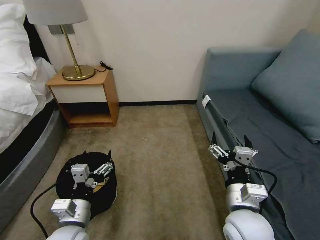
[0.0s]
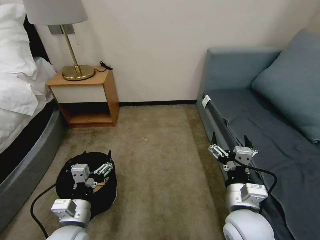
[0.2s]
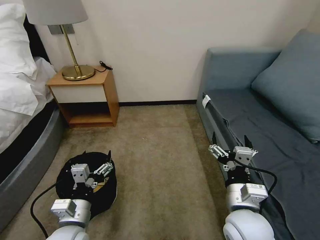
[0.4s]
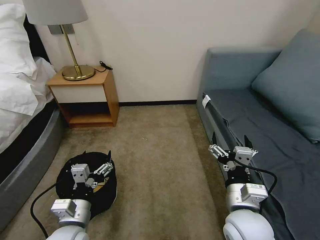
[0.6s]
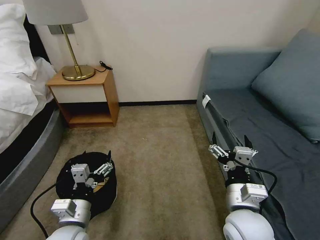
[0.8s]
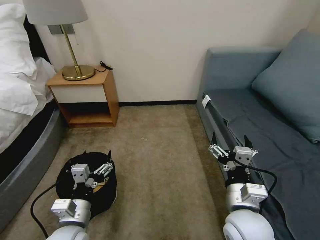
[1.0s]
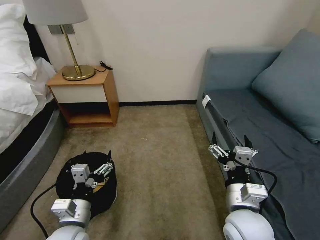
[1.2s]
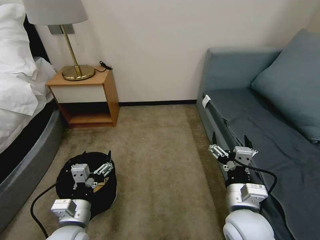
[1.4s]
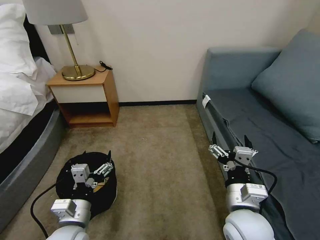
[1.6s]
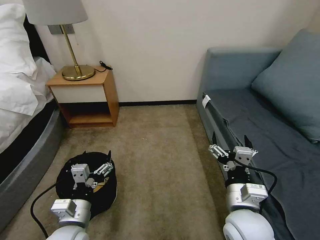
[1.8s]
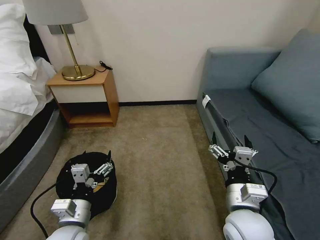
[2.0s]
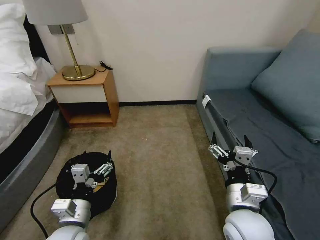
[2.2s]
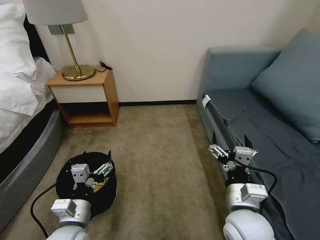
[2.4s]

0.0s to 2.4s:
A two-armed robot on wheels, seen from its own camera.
Task of the whole recording: Pick up the trash bin, then pick up the garbage on the floor and place it into the trash bin.
0.0s to 2.4s: Both grippers stay put.

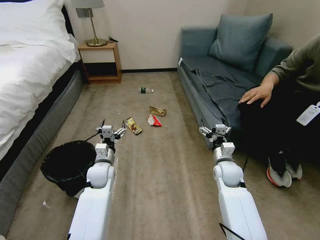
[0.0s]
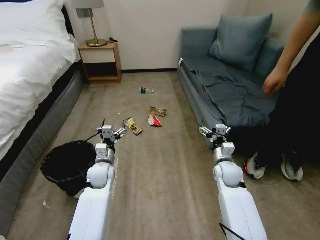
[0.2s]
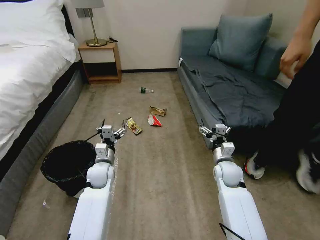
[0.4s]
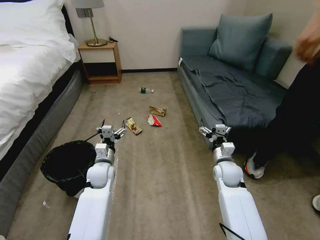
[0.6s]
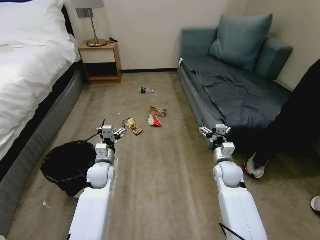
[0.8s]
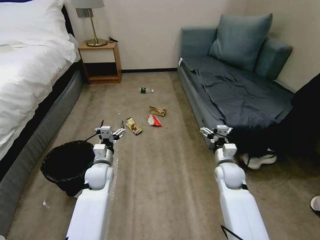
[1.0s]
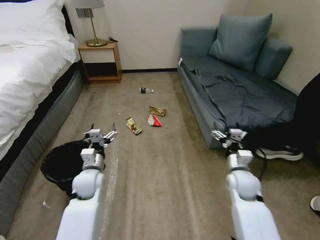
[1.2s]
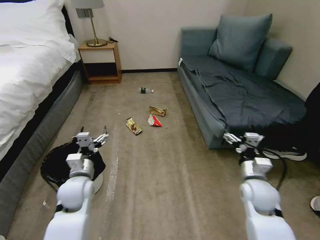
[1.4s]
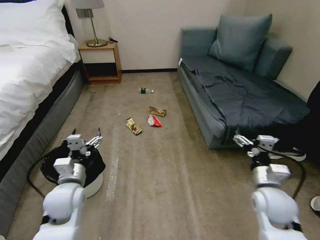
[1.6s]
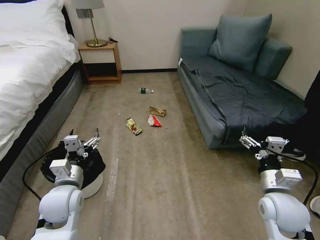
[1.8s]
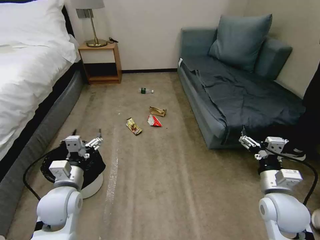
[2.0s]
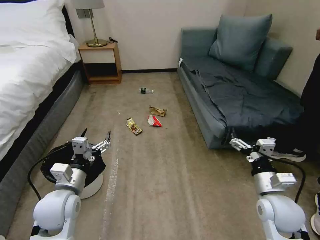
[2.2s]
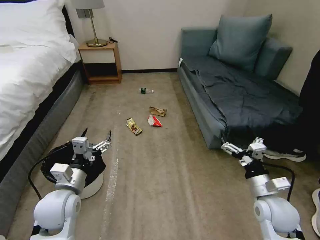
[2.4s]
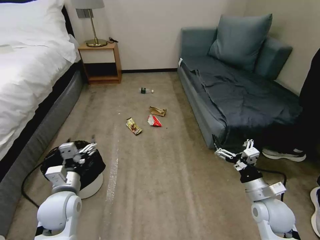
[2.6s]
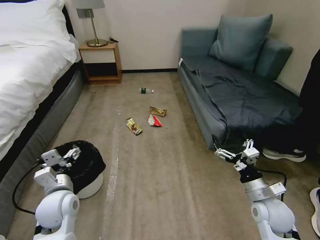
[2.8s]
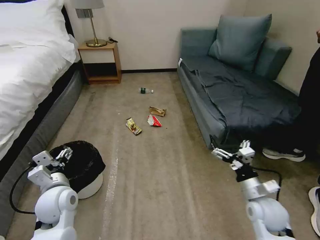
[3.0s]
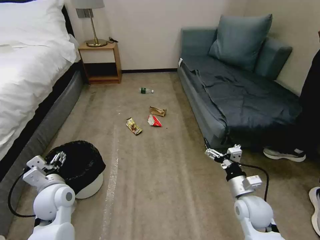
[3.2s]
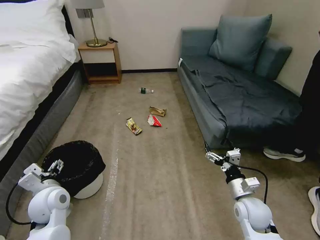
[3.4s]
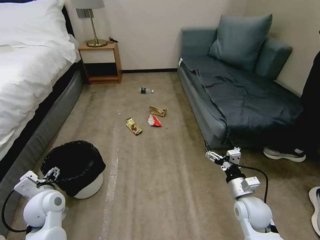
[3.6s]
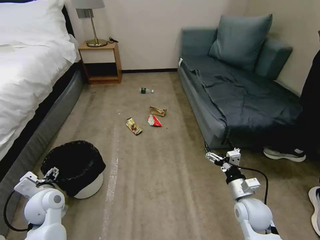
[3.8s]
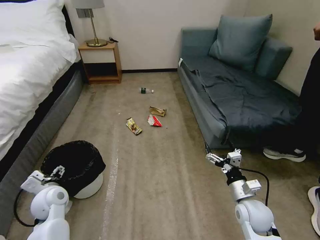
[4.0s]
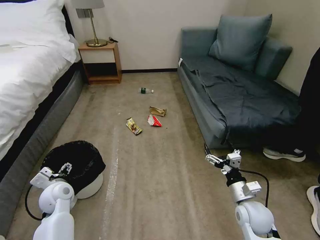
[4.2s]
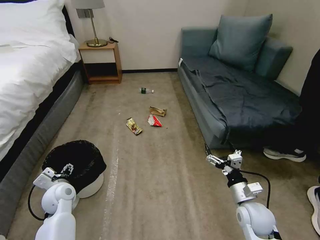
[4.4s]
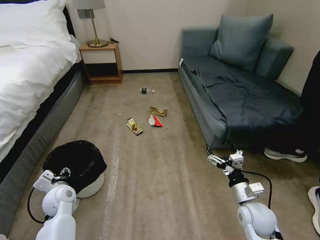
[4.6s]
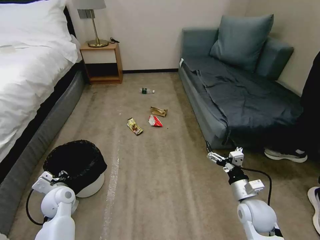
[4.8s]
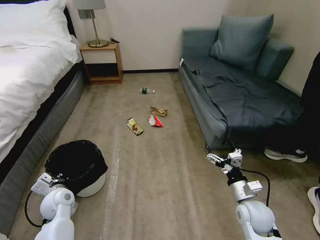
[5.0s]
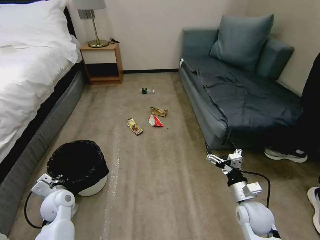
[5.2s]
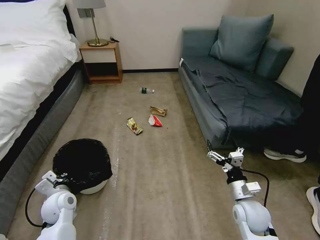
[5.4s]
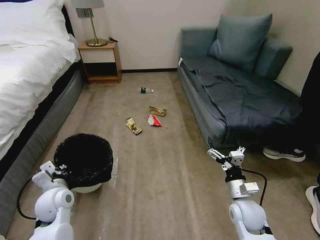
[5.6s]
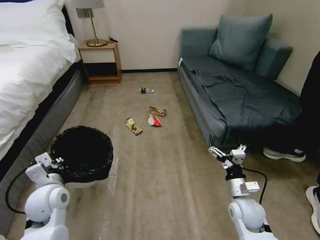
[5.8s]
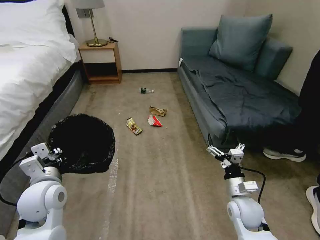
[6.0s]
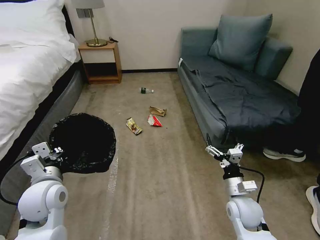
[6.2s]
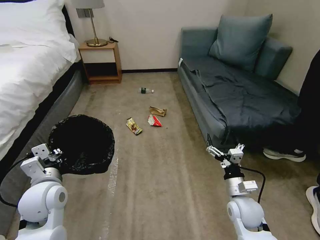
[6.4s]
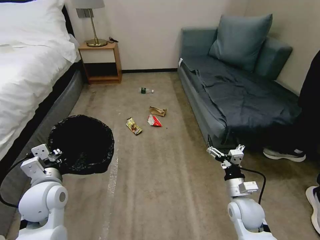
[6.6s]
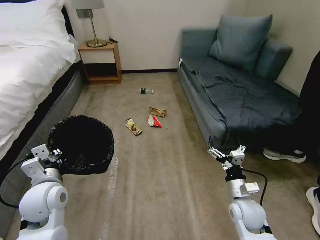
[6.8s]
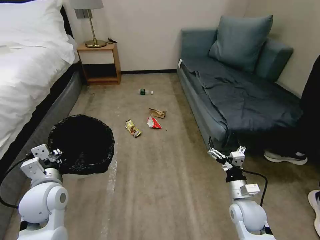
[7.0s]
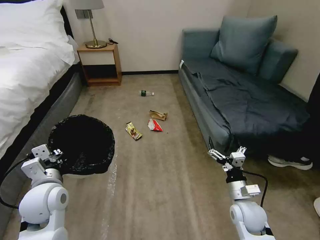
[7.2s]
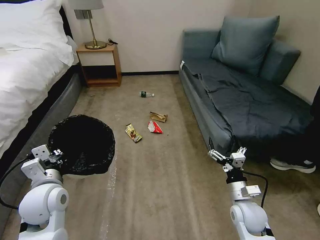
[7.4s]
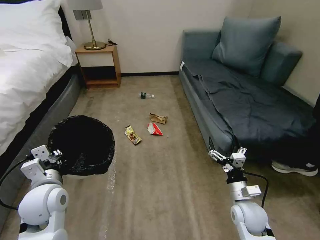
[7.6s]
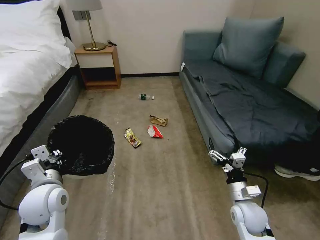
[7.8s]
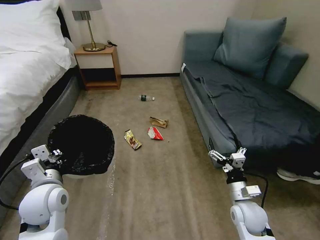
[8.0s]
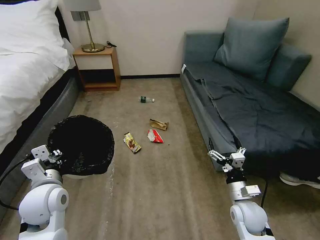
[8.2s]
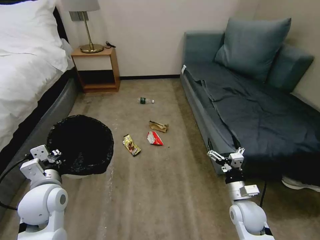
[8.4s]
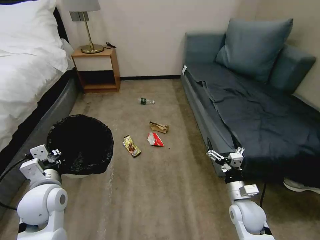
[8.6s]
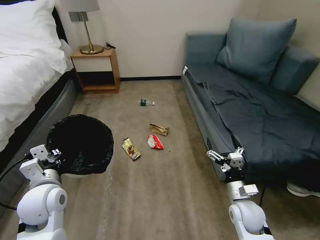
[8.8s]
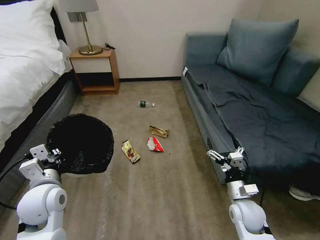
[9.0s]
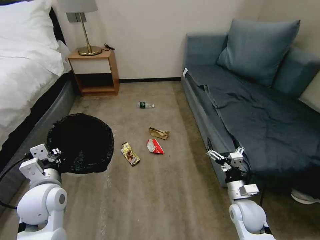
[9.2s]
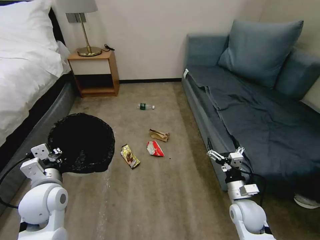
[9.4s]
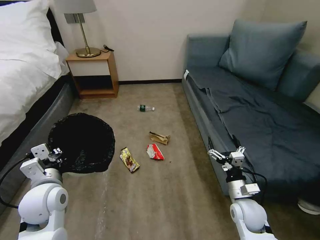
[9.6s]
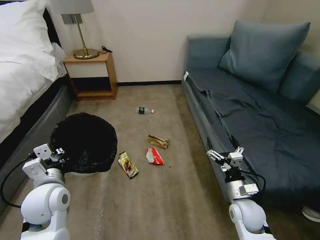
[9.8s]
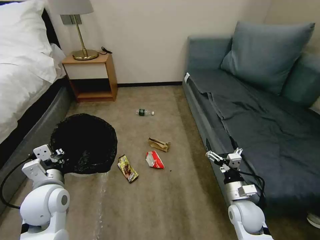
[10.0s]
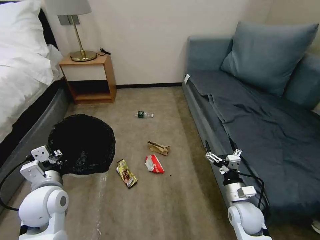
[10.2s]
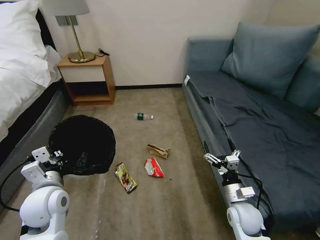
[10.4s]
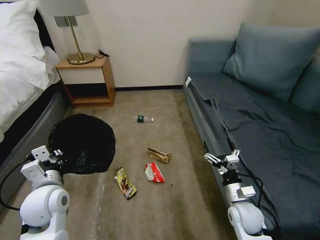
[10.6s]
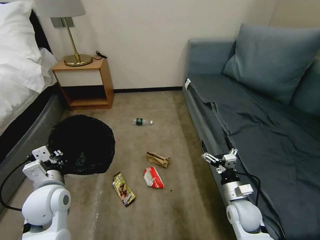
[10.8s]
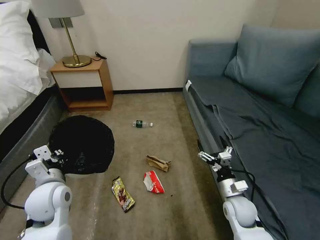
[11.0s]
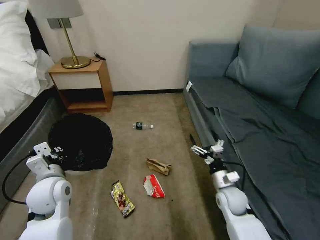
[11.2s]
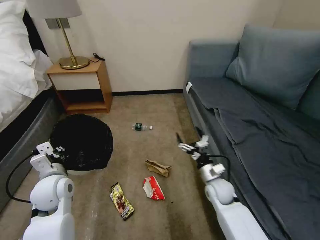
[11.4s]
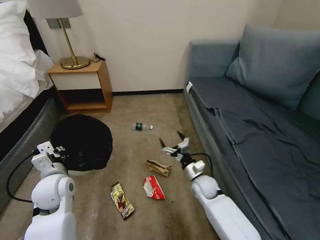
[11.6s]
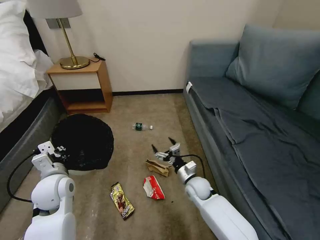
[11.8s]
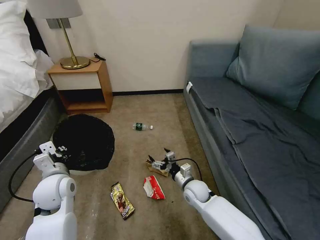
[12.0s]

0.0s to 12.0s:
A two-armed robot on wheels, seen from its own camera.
Task of the whole recording: Pick up the trash bin, then pick up the garbage on the floor and place it into the trash bin.
1.6s to 3.0s: The right gripper heads downward, covering about 5 cm.
3.0s to 4.4s: The left gripper moves downward, approximately 10 cm.
4.4s to 6.0s: The left gripper moves upward and backward, some 15 cm, and closes up.
10.4s to 12.0s: The right gripper is displaced to the left and forward by approximately 15 cm.

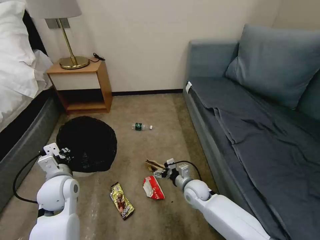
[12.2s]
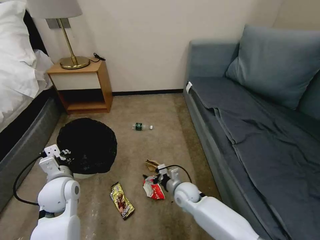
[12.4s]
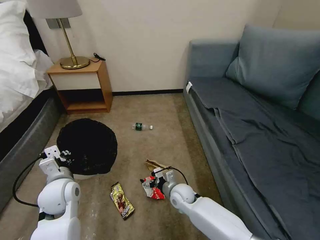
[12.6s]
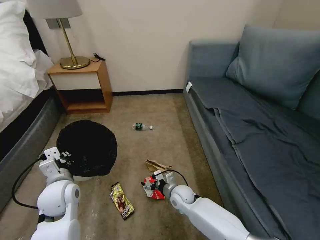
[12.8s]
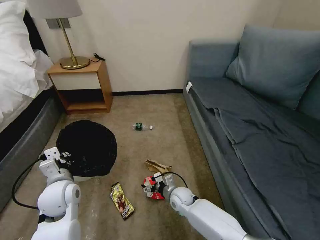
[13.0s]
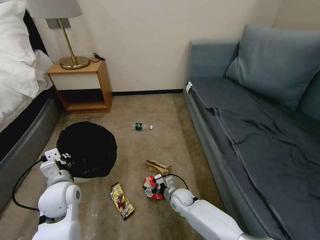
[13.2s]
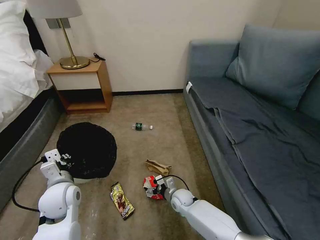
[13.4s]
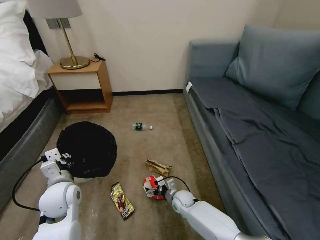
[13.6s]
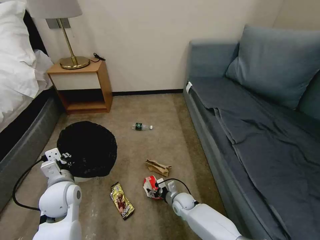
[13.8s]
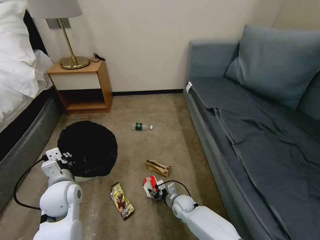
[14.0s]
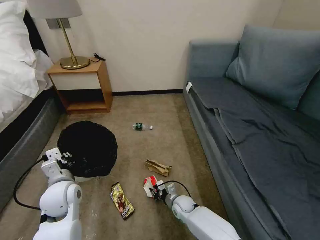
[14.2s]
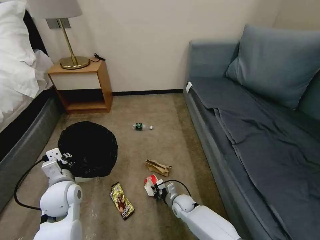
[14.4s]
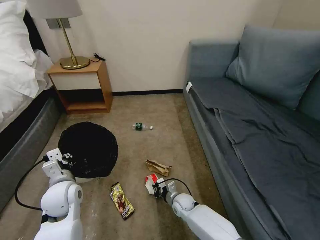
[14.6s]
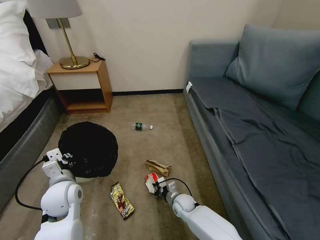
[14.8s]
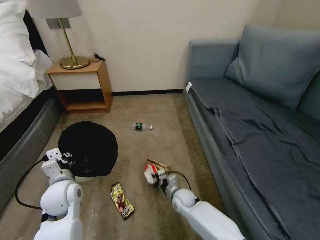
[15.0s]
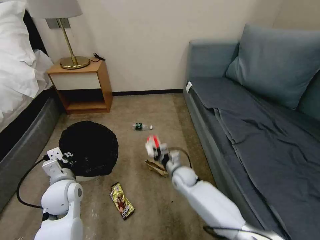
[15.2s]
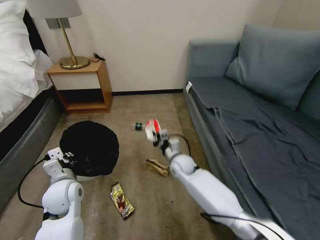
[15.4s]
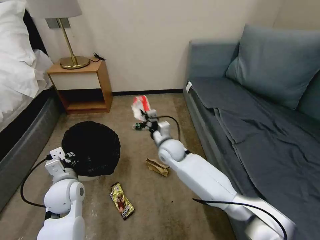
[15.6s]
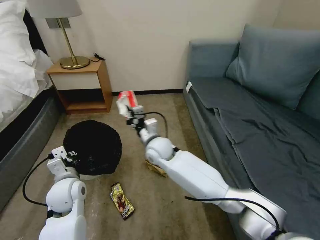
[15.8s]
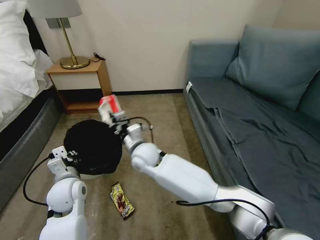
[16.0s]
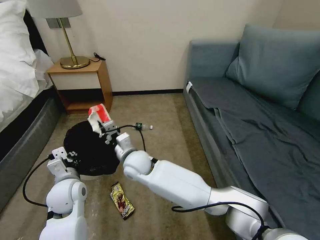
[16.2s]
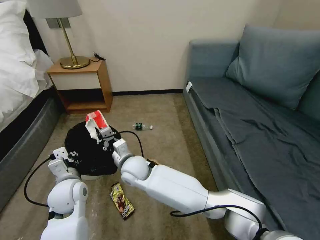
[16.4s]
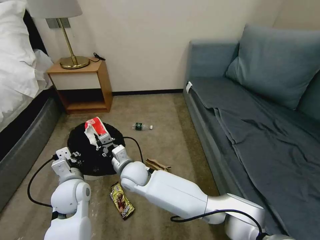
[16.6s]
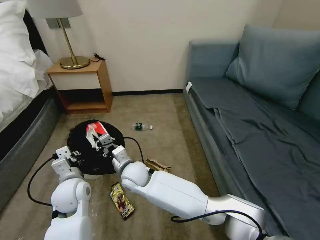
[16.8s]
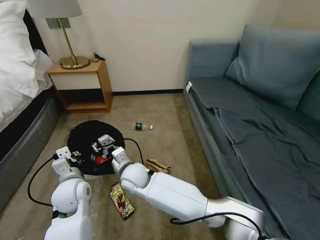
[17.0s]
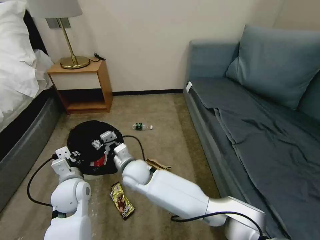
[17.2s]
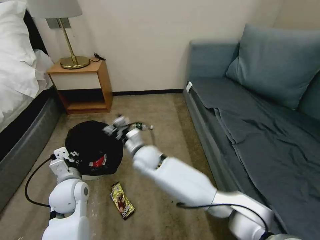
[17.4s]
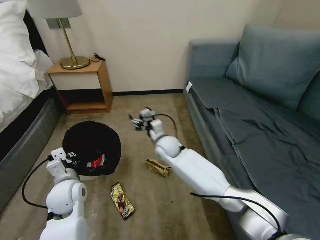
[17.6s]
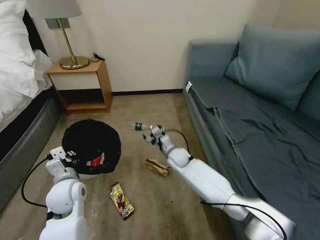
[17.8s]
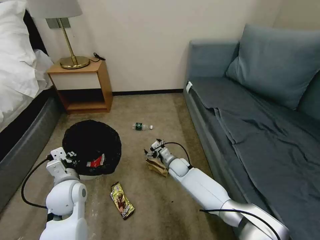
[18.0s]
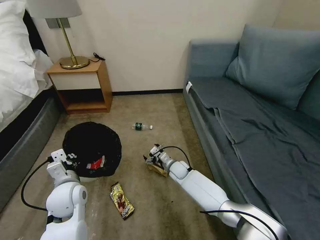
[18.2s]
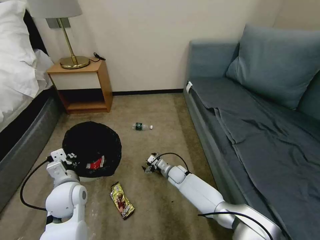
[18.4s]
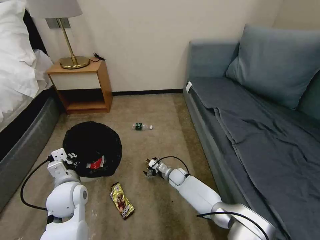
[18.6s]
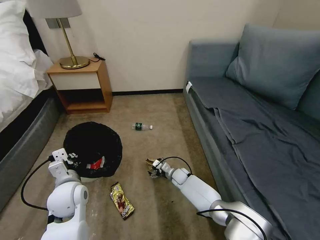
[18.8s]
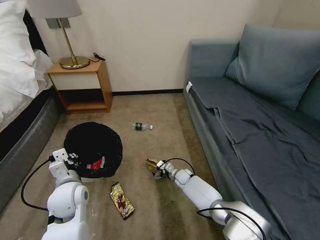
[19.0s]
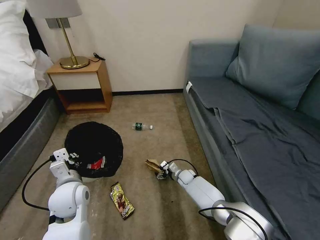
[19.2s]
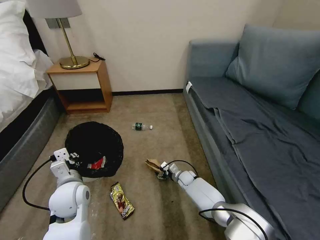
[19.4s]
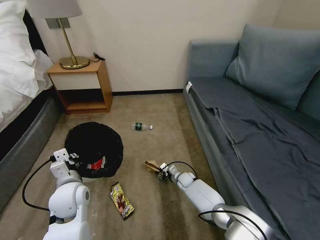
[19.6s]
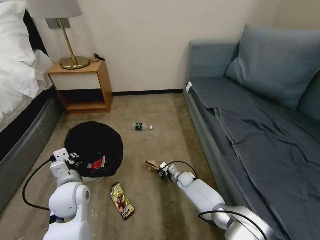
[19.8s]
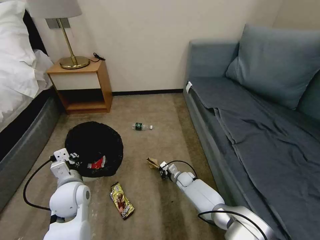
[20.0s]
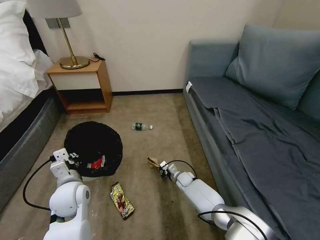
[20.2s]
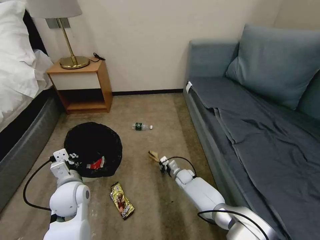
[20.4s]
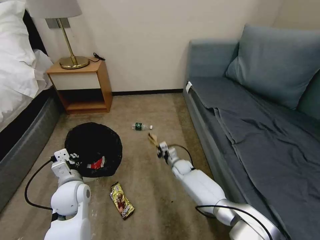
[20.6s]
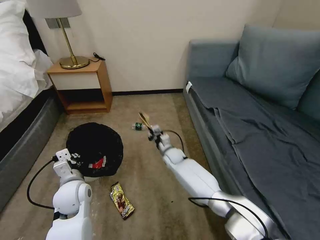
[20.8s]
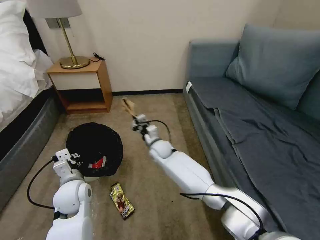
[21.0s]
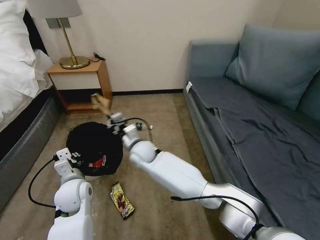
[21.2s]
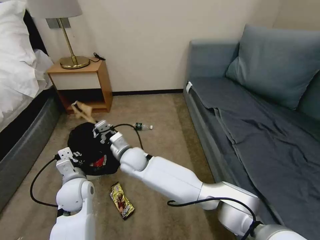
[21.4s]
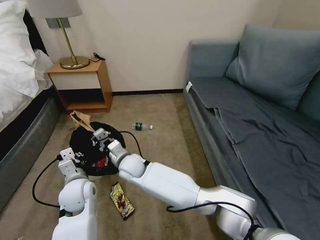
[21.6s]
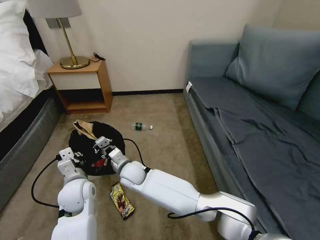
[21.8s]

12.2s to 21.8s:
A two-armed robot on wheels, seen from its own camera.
Task of the whole recording: Pick up the trash bin, then pick up the garbage on the floor and place it into the trash bin.
12.2s to 13.8s: The right gripper goes roughly 10 cm downward.
13.8s to 15.4s: The right gripper heads upward and forward, covering some 20 cm, and closes its fingers.
15.4s to 17.0s: The right gripper is displaced to the left and backward by approximately 20 cm, and opens.
17.0s to 18.6s: The right gripper travels downward, to the right and forward by some 30 cm, and opens.
18.6s to 20.2s: The right gripper moves roughly 5 cm, and closes.
20.2s to 21.8s: The right gripper is displaced to the left and upward by roughly 30 cm.
